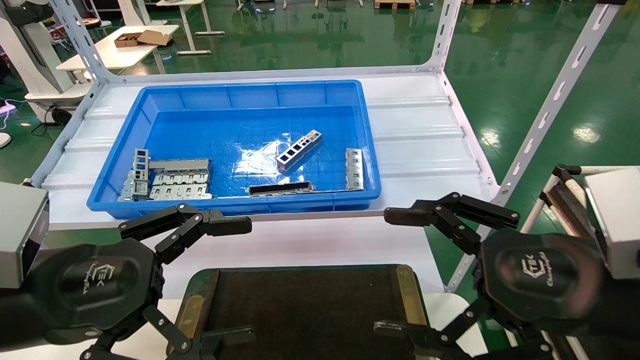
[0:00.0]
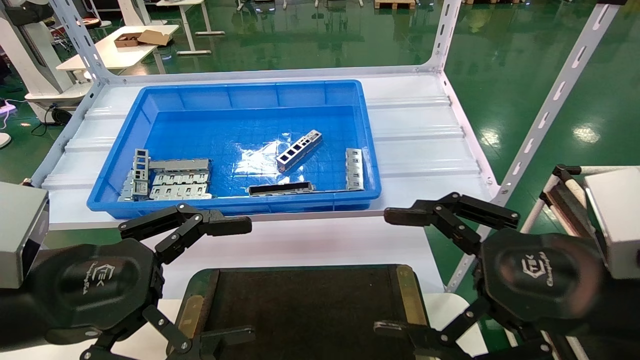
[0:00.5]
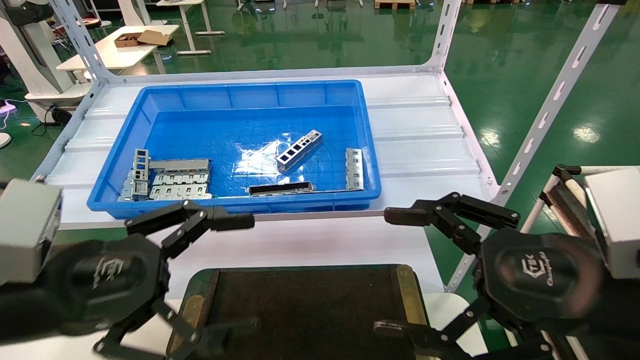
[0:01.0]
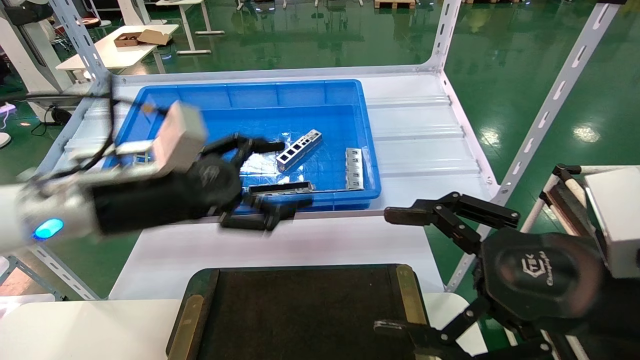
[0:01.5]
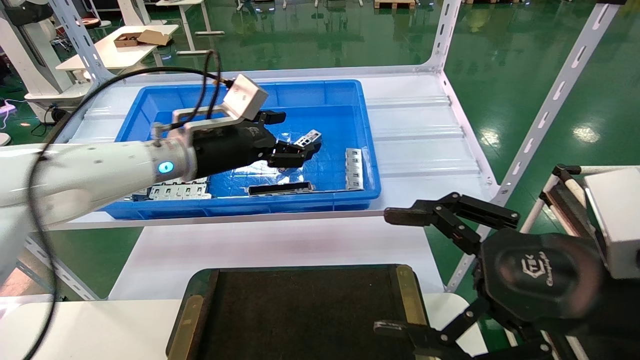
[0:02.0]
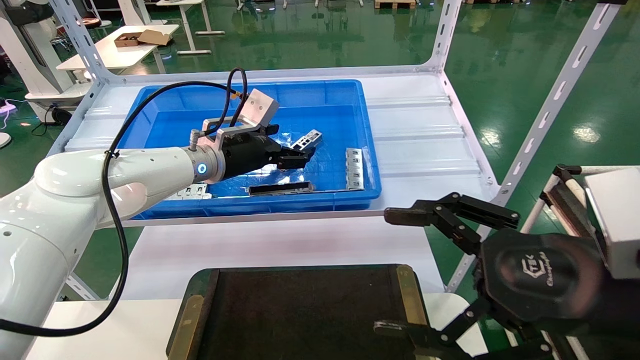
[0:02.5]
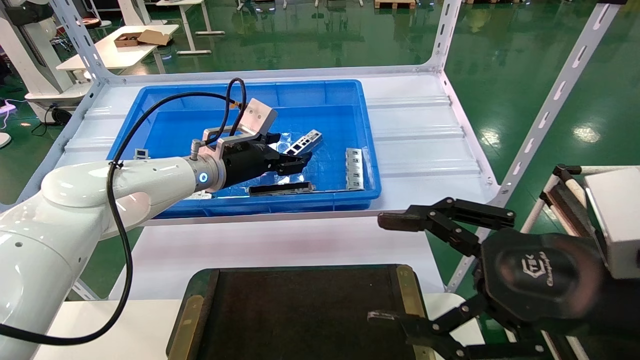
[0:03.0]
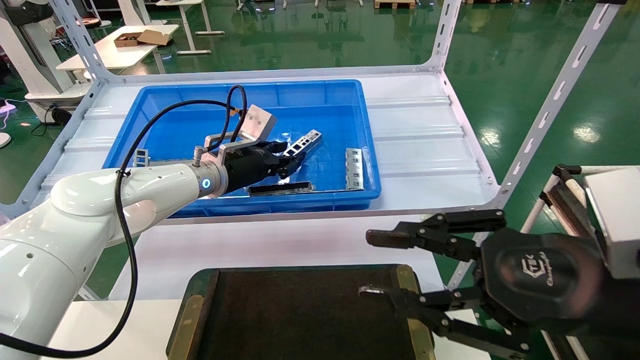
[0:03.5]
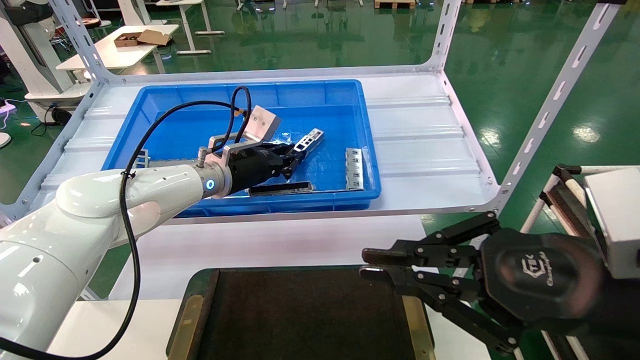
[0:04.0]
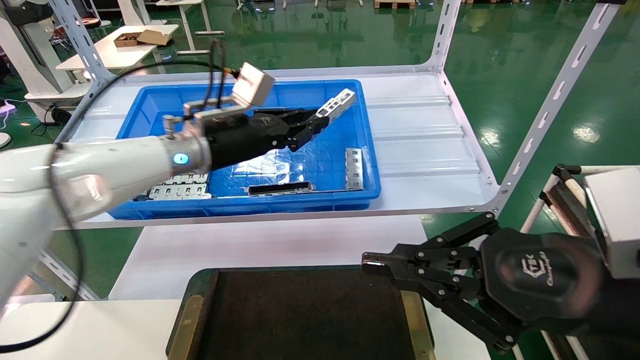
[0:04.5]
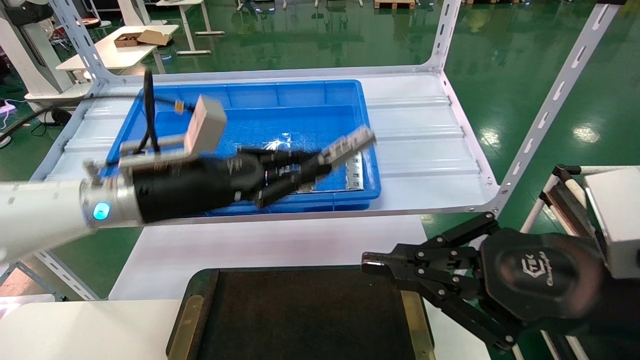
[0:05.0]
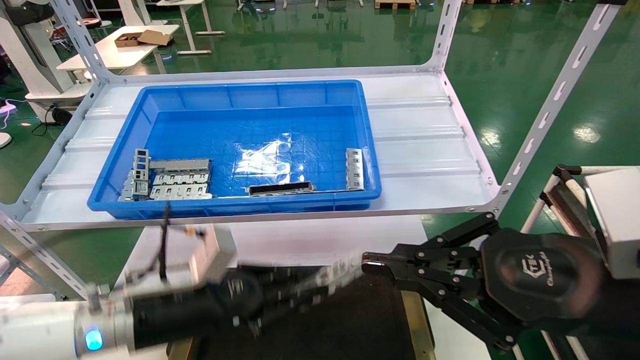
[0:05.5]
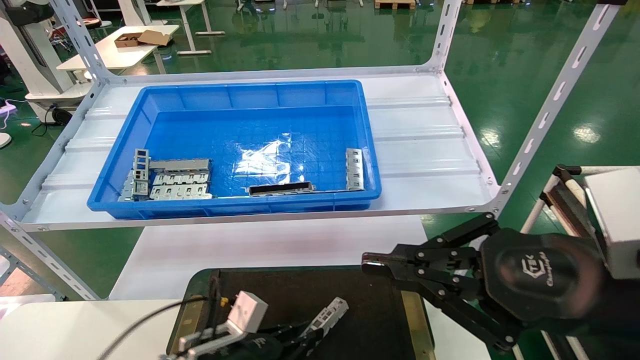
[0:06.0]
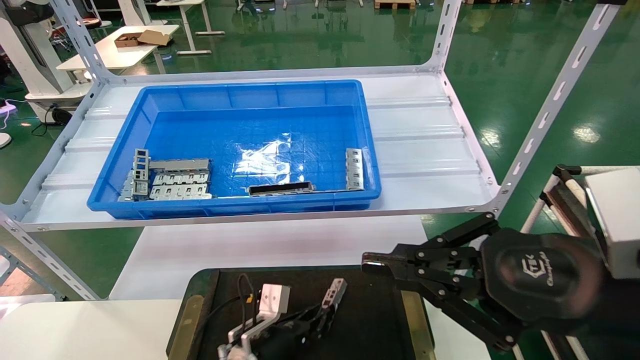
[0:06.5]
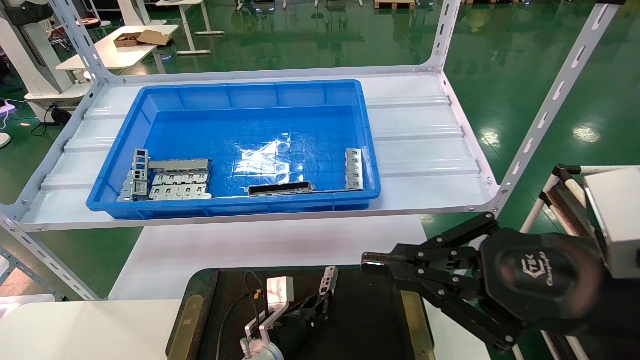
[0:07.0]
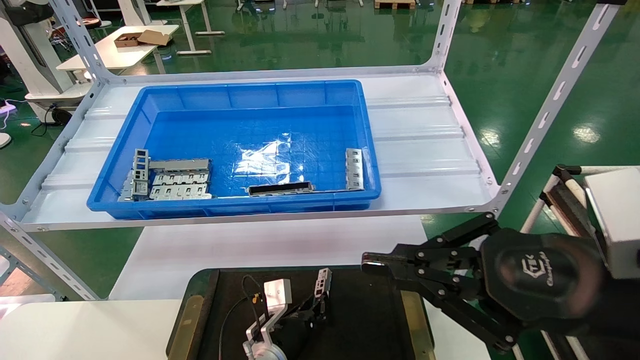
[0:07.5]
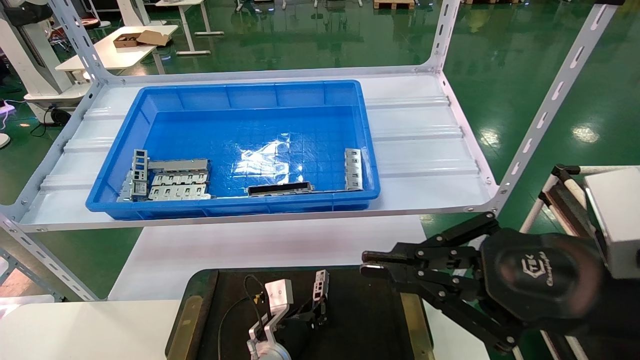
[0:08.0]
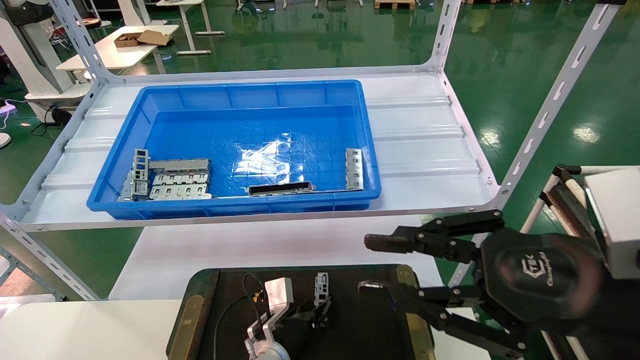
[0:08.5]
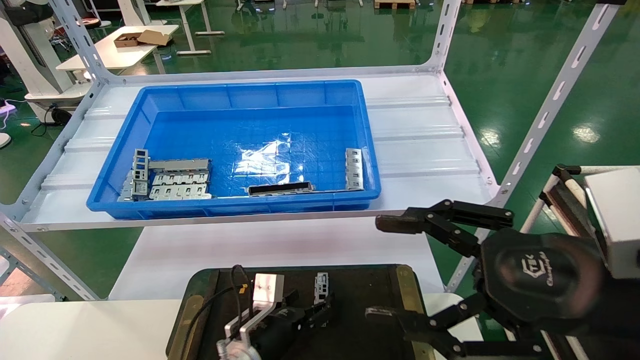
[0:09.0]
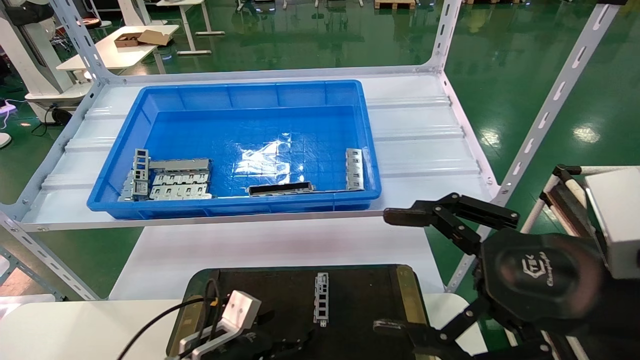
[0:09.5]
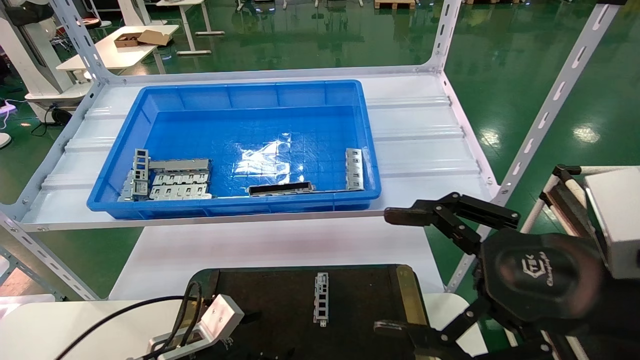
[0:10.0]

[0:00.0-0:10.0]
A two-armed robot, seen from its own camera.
Task of the whole recording: Grasp the part with one hand and place it on the black container.
Step, 0:01.5 to 0:03.5: Pick up the front USB bracket from the feeding area.
Step, 0:04.0 to 0:08.0: Place the front USB bracket into the box.
0:00.0 to 0:02.0: The left gripper moves forward, roughly 25 cm.
0:02.0 to 0:04.0: The right gripper closes up, while the left gripper travels forward by some 5 cm, and closes up.
0:04.0 to 0:06.0: The left gripper moves downward and backward, roughly 30 cm.
0:06.0 to 0:08.0: The left gripper moves to the right, forward and downward, some 15 cm.
0:08.0 to 0:10.0: The right gripper opens. Meanwhile the left gripper is displaced to the left, backward and upward by roughly 20 cm, and opens.

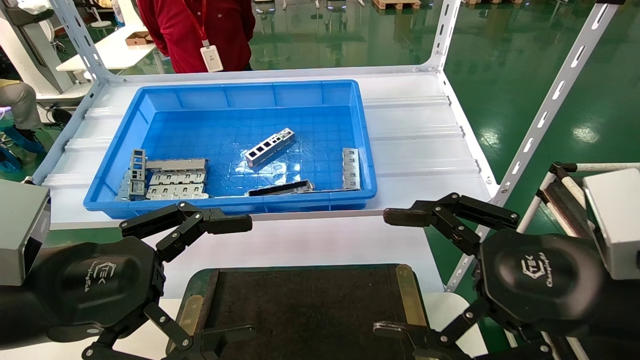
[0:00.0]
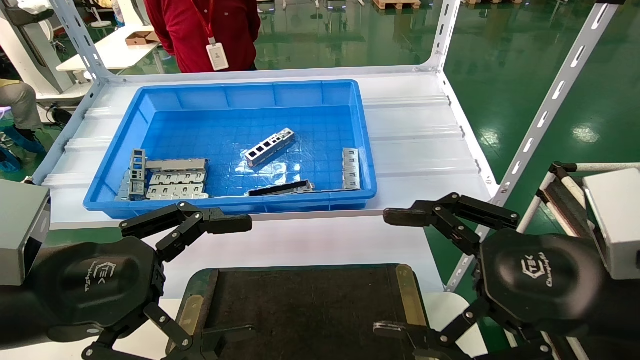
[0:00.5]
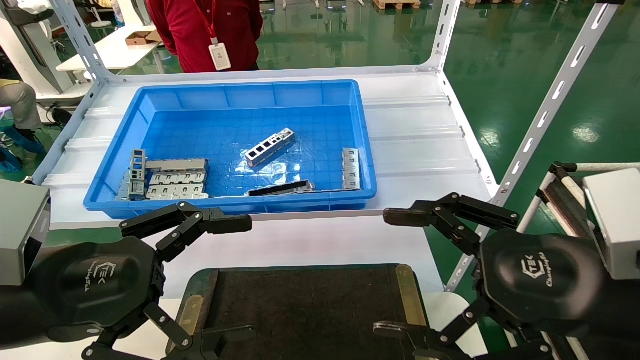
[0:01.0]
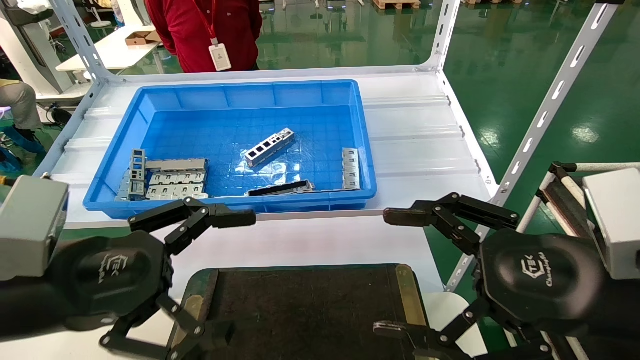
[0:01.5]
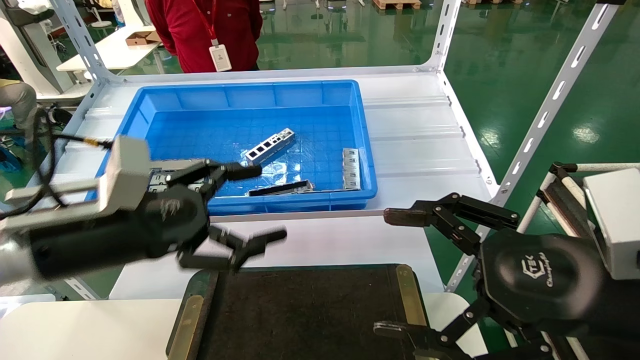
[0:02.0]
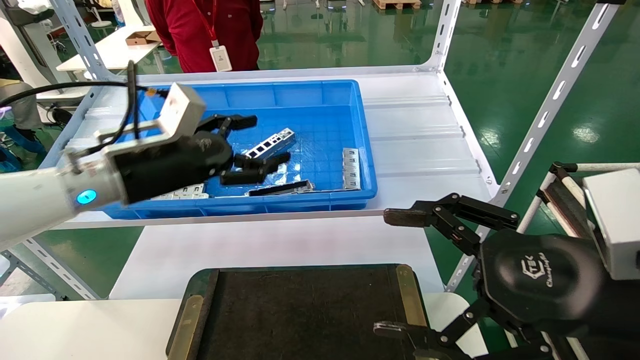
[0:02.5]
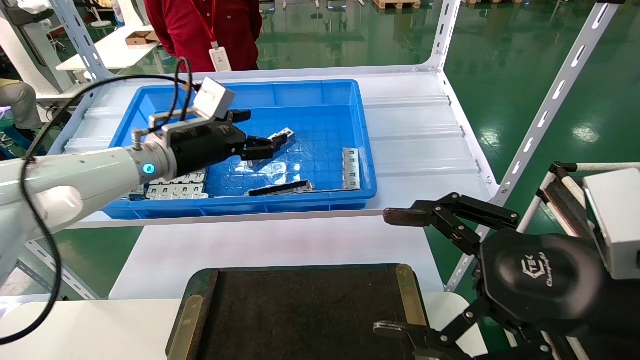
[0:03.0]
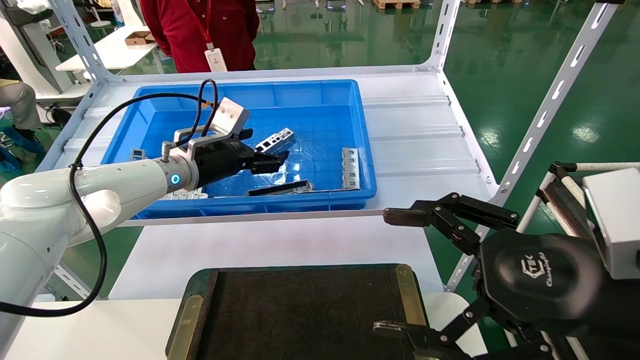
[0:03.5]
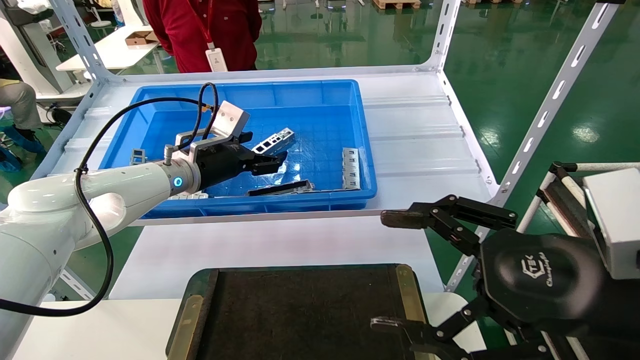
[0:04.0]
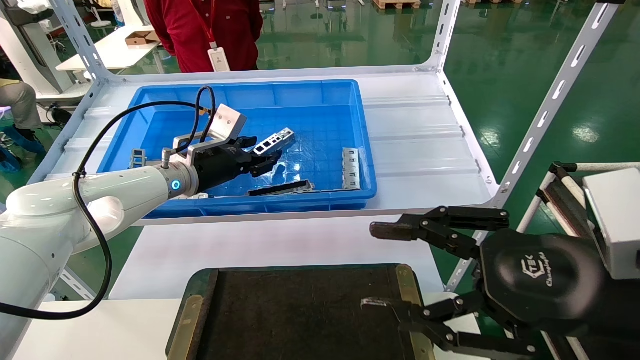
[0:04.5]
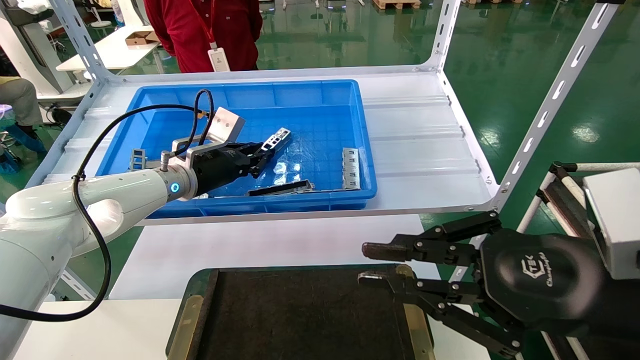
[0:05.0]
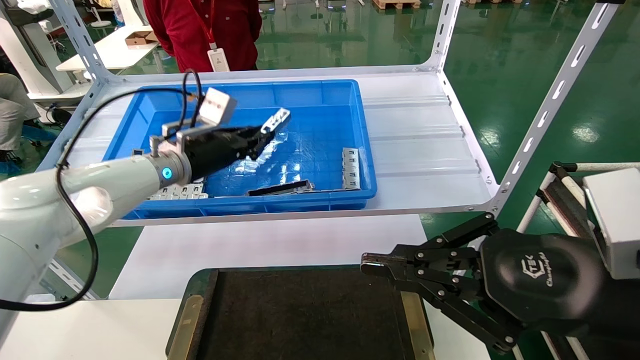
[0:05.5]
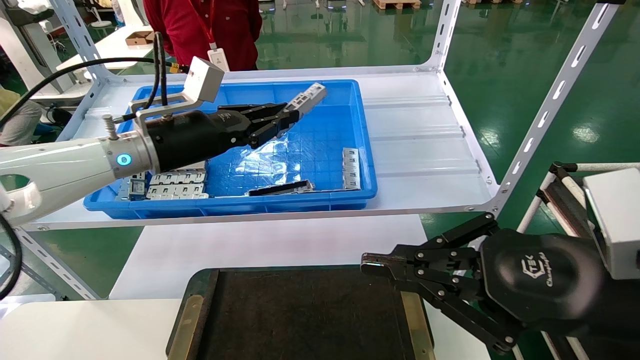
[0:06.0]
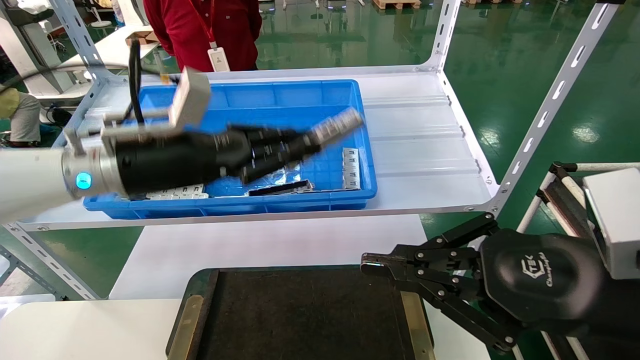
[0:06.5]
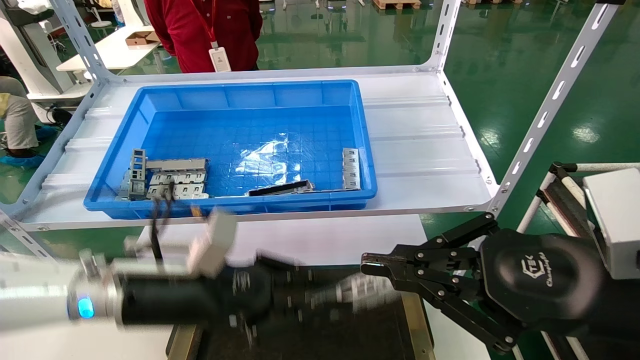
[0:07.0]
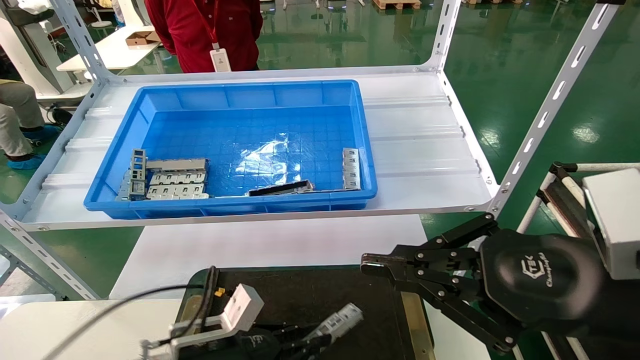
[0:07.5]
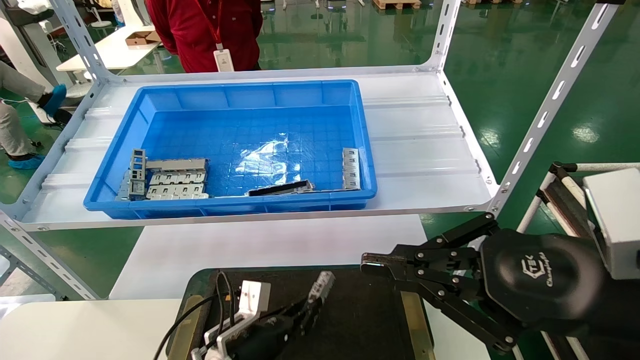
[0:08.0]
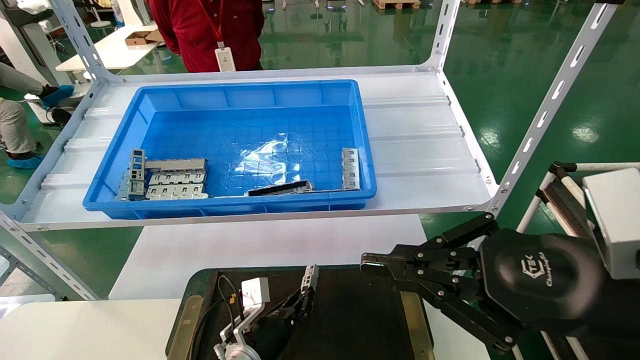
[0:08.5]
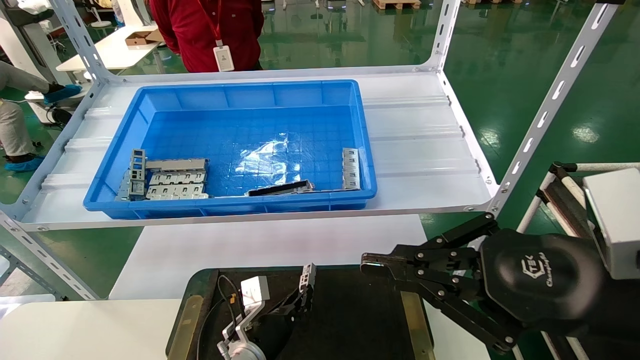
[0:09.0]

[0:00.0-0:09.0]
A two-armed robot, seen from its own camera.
Task of the whole recording: Grasp the part with one hand and place it on the black container.
Step, 0:02.0 to 0:05.5: Pick up the front USB bracket from the feeding area.
0:00.0 to 0:02.0: The left gripper goes some 10 cm forward.
0:02.0 to 0:04.5: The left gripper moves forward, about 20 cm, and closes up.
0:04.5 to 0:07.0: The left gripper heads backward and downward, covering approximately 20 cm, and closes its fingers, while the right gripper closes its fingers.
0:07.0 to 0:09.0: The left gripper heads downward and forward, covering roughly 25 cm.

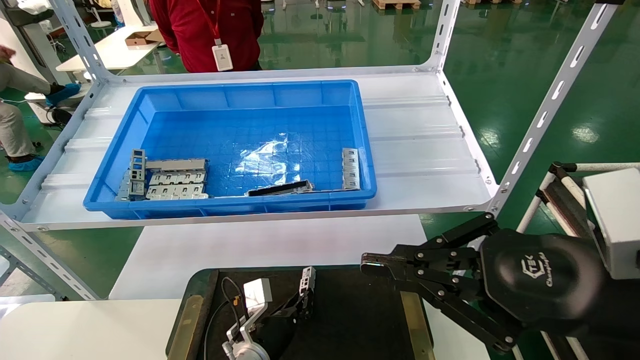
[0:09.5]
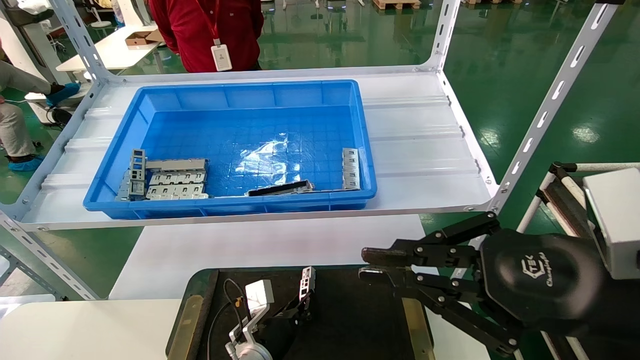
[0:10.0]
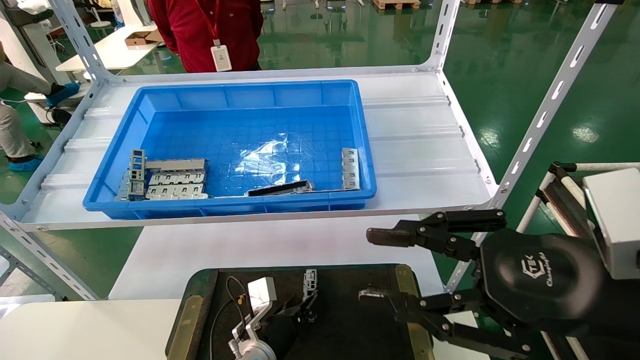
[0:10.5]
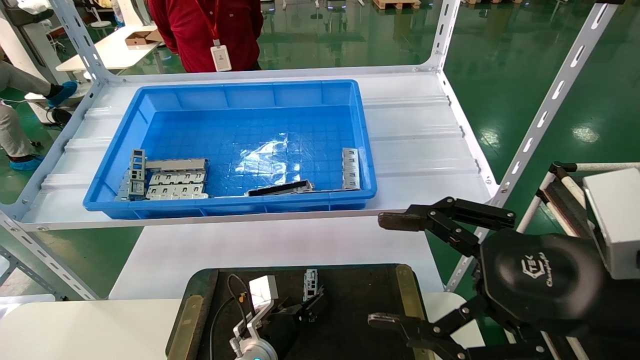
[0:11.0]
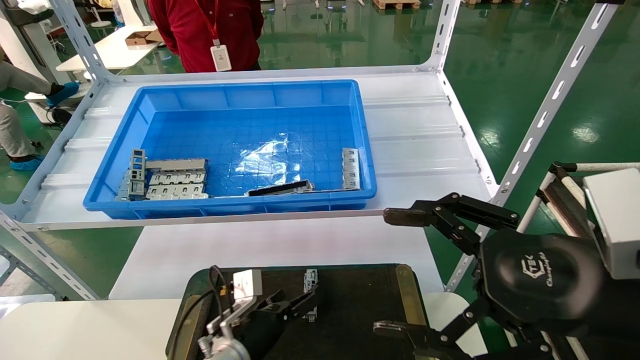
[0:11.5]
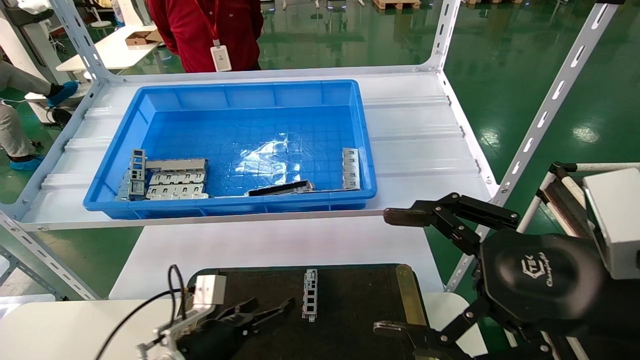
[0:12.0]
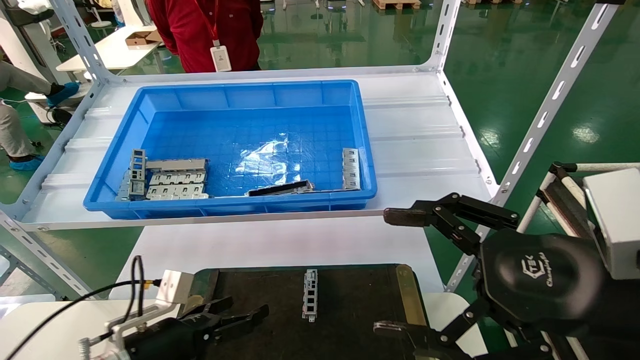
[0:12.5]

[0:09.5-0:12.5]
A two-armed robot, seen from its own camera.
Task of the whole recording: Grasp the part with one hand and place it on the black container.
0:09.5 to 0:11.0: The left gripper opens. Meanwhile the right gripper opens up.
0:11.0 to 0:12.5: The left gripper heads to the left, backward and upward, covering approximately 20 cm.
